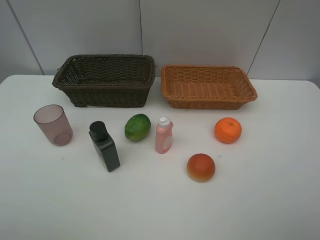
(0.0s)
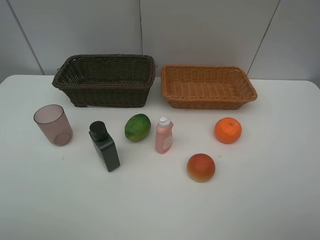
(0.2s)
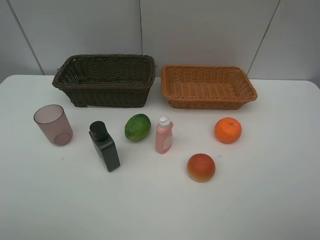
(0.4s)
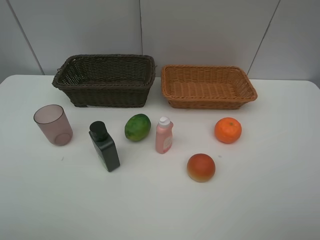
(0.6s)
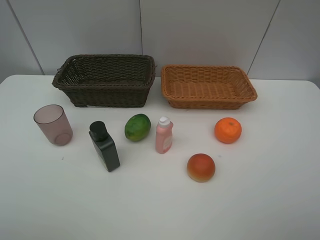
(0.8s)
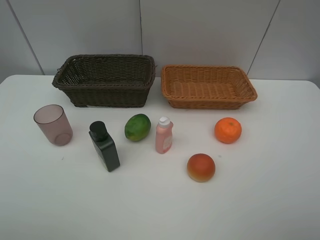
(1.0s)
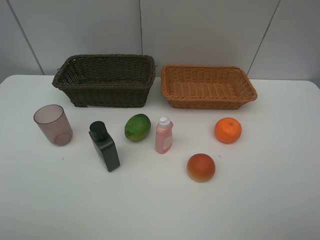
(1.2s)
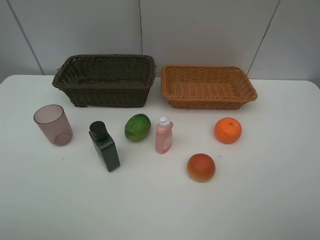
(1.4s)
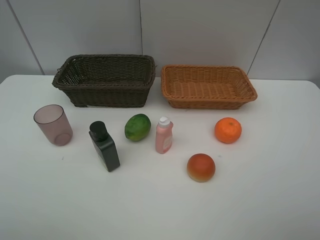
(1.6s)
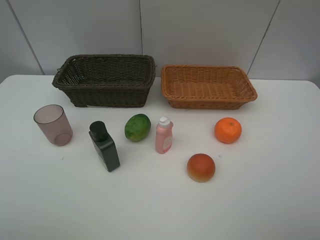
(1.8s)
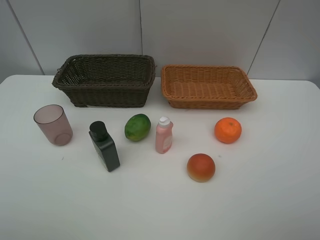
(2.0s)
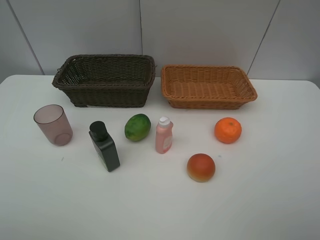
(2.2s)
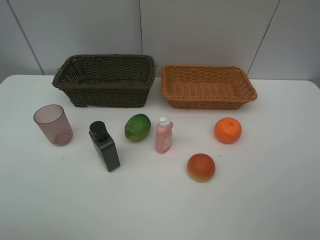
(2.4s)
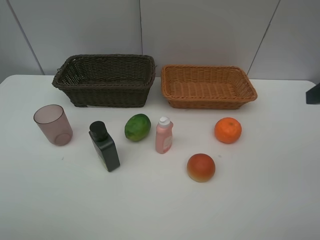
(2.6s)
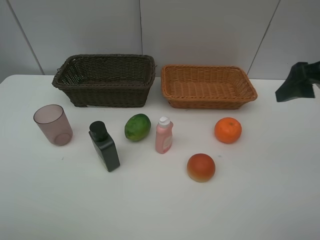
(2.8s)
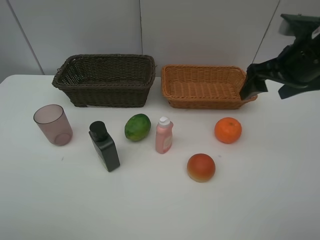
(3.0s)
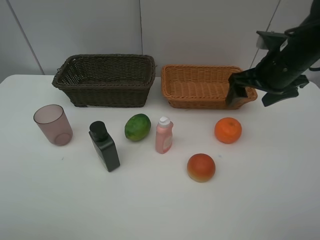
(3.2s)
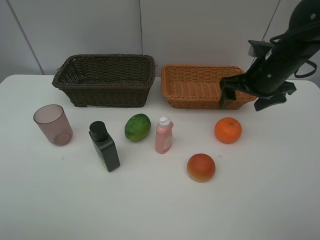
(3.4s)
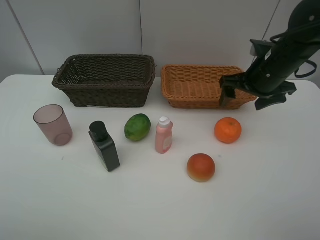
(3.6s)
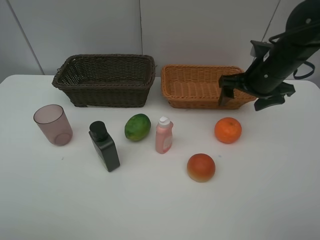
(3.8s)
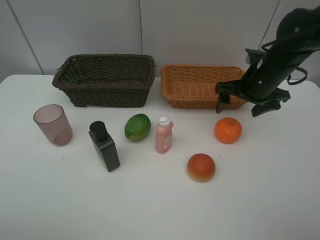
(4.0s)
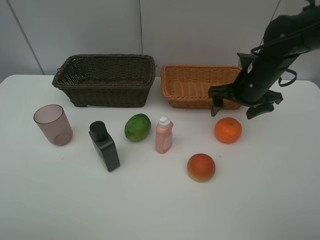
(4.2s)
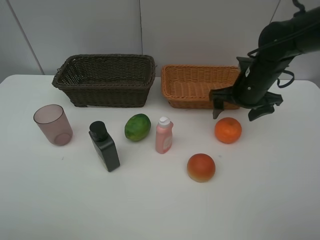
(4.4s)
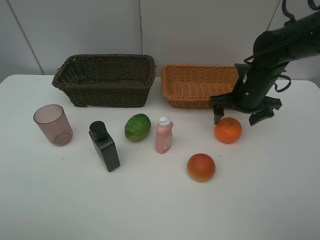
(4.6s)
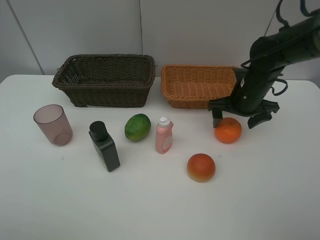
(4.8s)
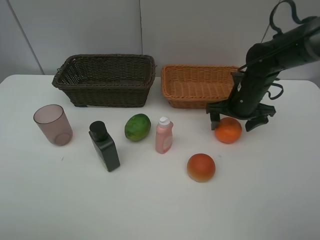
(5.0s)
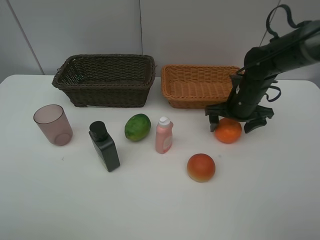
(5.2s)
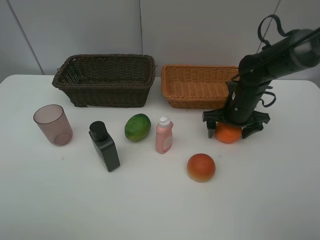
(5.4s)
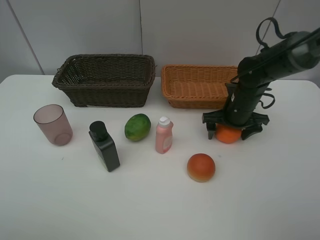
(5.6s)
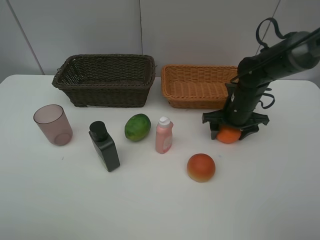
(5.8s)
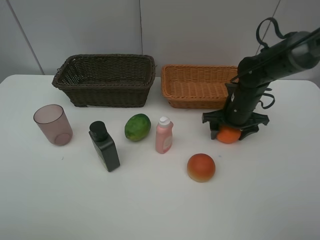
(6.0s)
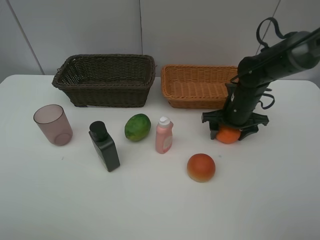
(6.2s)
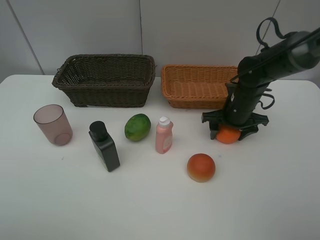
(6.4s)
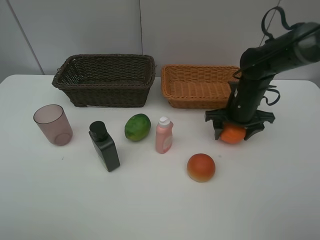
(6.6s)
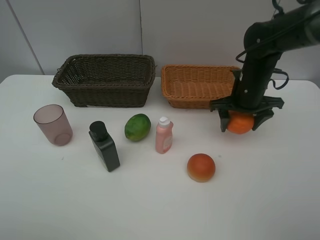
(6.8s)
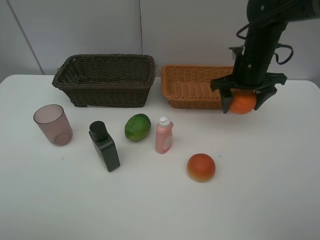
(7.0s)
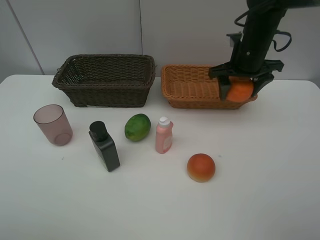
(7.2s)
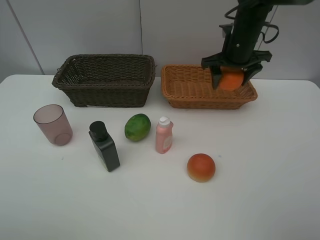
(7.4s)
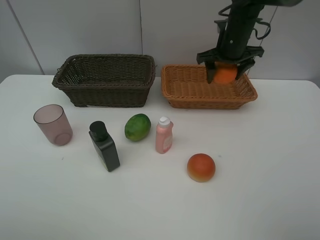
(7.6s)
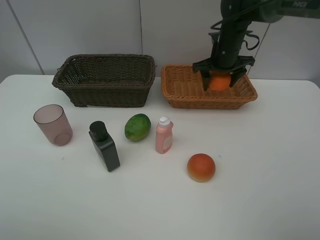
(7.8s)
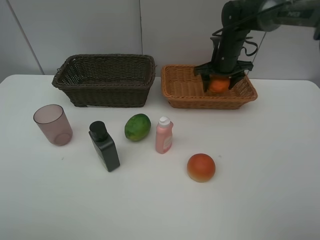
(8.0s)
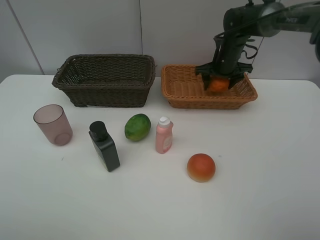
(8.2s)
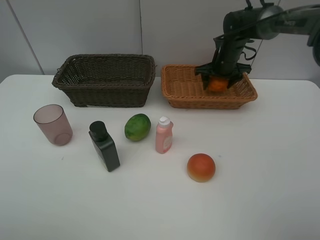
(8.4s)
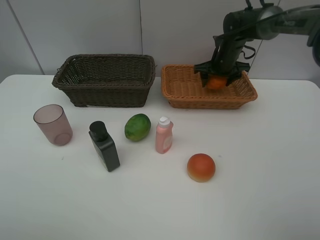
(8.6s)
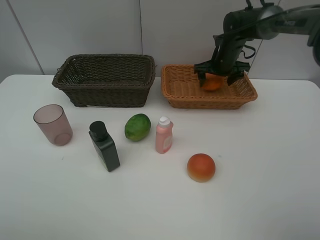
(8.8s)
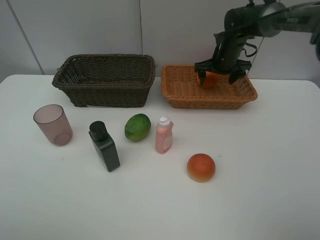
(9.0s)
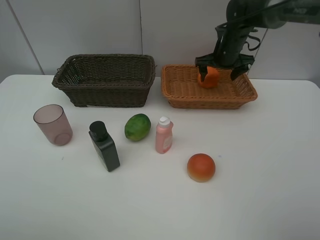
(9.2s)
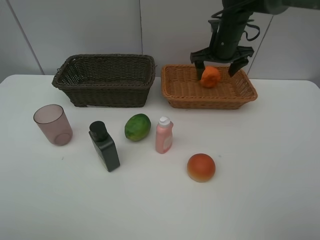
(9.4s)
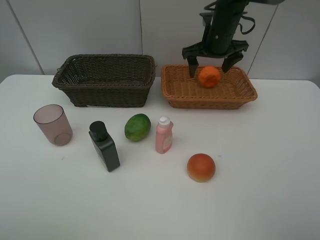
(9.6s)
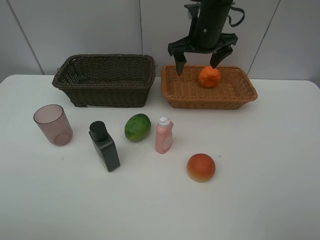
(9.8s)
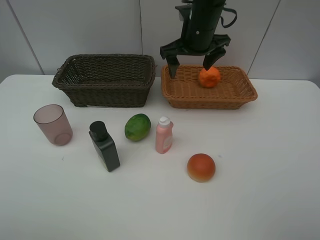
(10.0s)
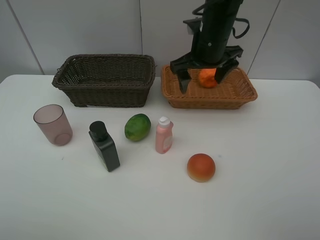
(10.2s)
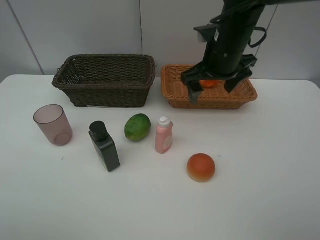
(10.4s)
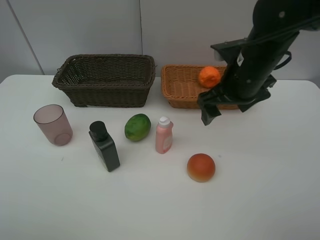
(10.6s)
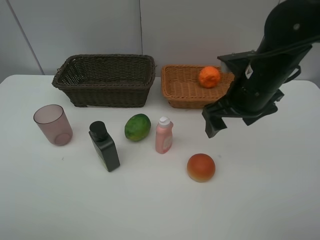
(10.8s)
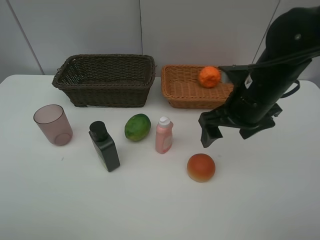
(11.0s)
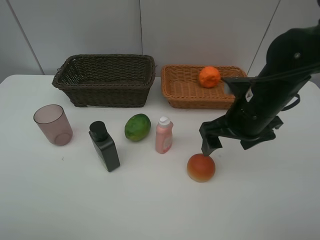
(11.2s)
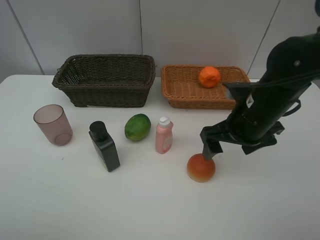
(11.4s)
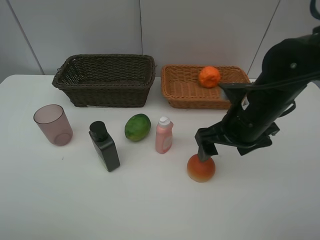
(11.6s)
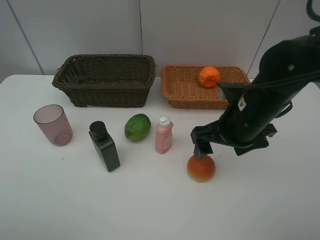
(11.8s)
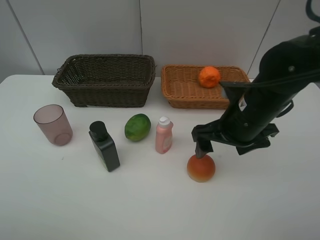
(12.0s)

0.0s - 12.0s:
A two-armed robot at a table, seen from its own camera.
Task of the whole recording: place multiple objects separately in different baskets.
0.0s - 1.6s: Both grippers stay about where they are.
1.6s - 3.0s: The right gripper is displaced forward by some 30 cm.
3.0s - 4.4s: The right gripper shifts approximately 10 cm downward and forward.
4.4s - 6.0s: The right gripper moves downward, roughly 5 cm.
6.0s - 7.6s: The right gripper shifts roughly 15 cm upward and forward.
7.6s - 9.0s: The right gripper heads downward, covering about 5 cm.
9.0s - 10.4s: The right gripper is displaced backward and upward by roughly 20 cm.
10.4s - 12.0s: The right gripper moves backward and downward, about 10 cm.

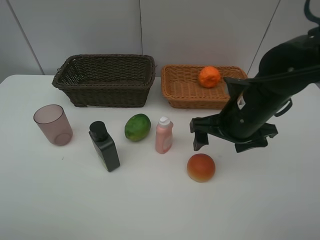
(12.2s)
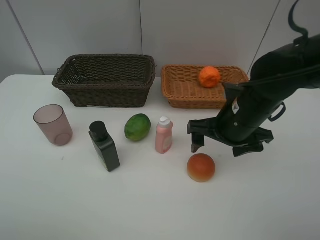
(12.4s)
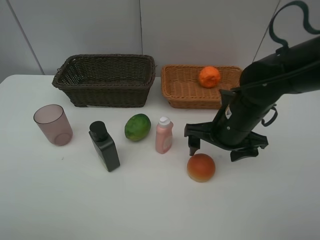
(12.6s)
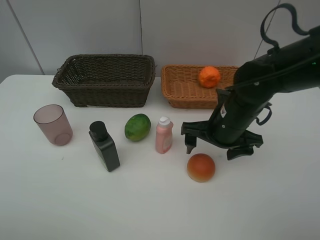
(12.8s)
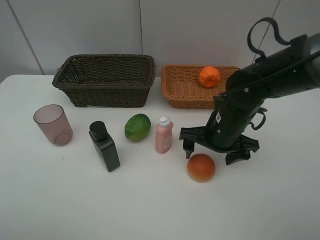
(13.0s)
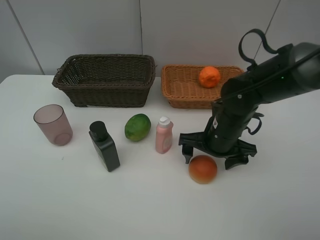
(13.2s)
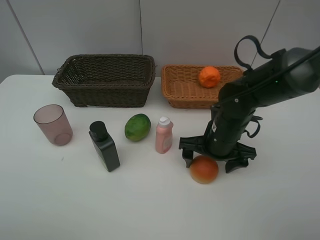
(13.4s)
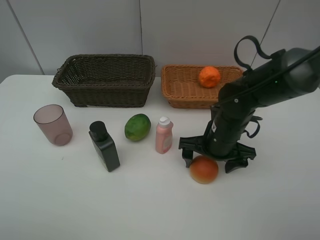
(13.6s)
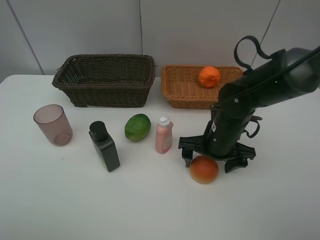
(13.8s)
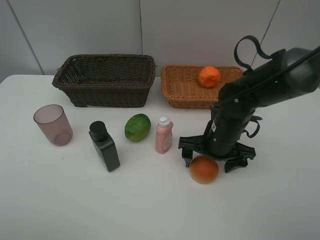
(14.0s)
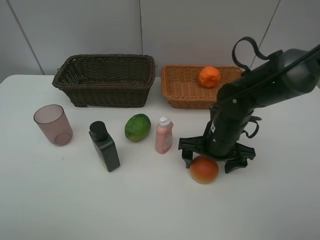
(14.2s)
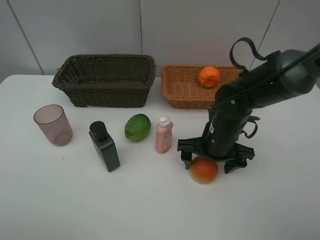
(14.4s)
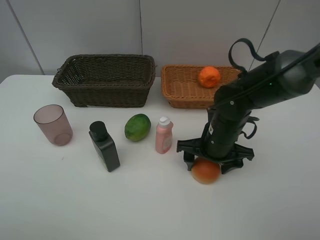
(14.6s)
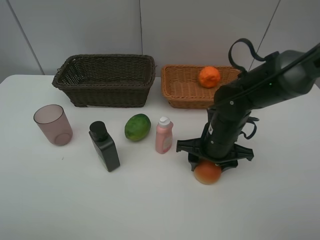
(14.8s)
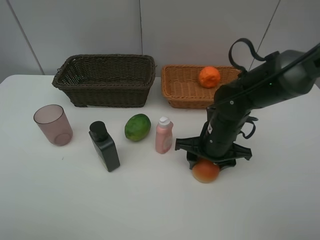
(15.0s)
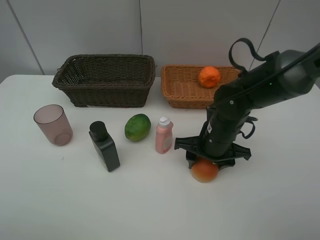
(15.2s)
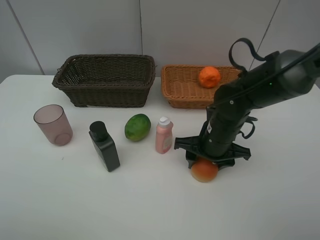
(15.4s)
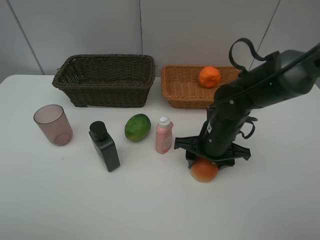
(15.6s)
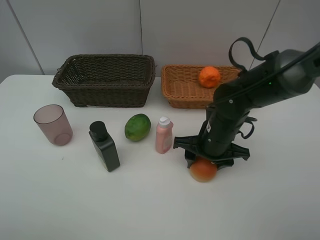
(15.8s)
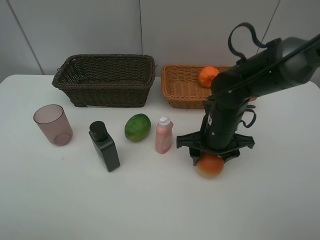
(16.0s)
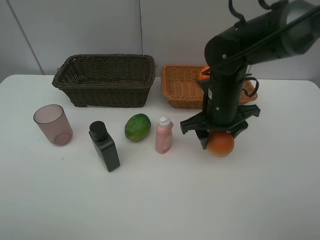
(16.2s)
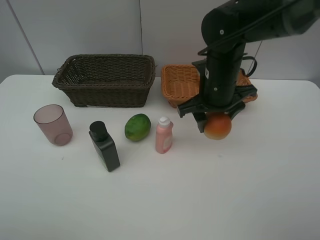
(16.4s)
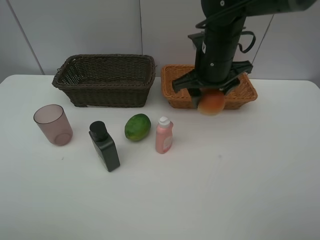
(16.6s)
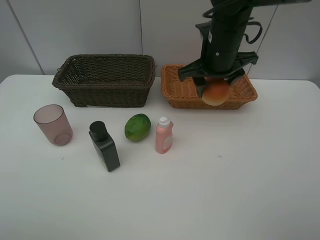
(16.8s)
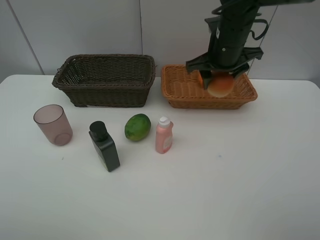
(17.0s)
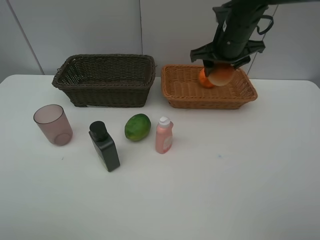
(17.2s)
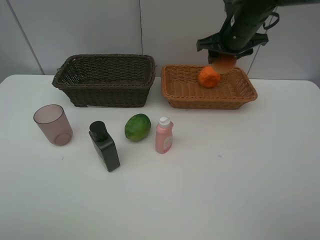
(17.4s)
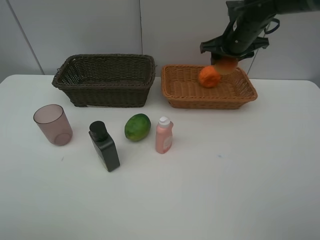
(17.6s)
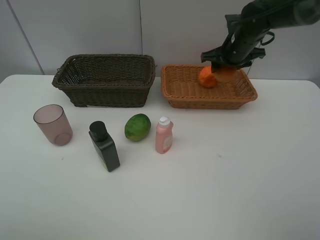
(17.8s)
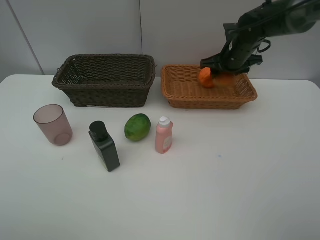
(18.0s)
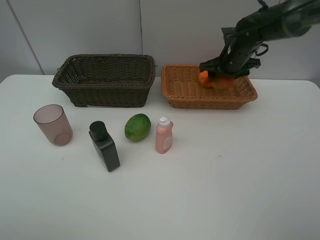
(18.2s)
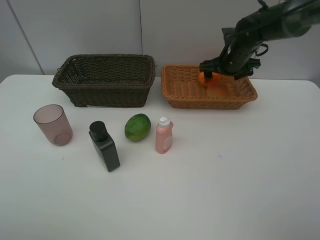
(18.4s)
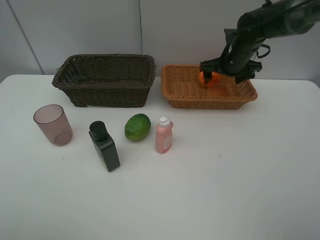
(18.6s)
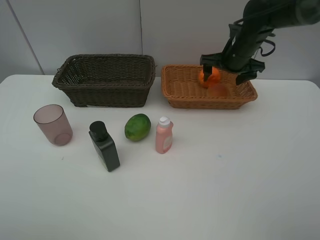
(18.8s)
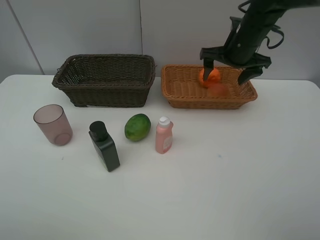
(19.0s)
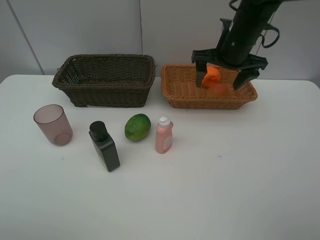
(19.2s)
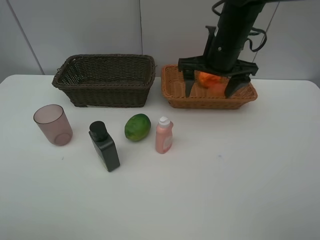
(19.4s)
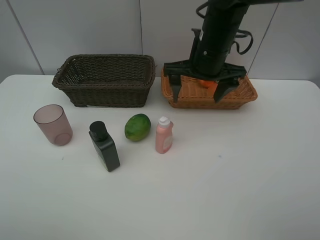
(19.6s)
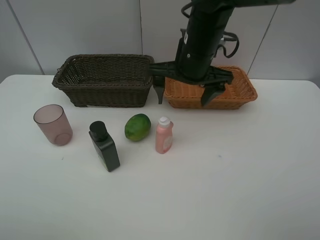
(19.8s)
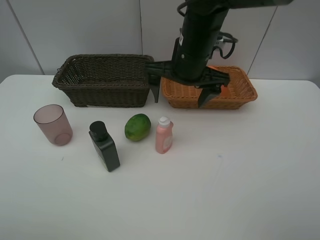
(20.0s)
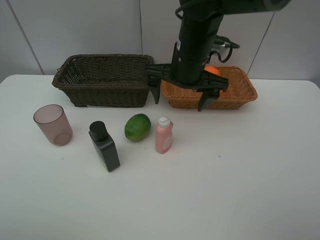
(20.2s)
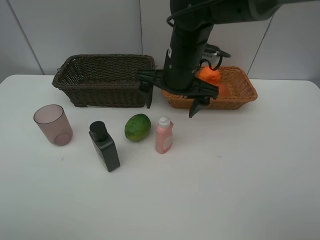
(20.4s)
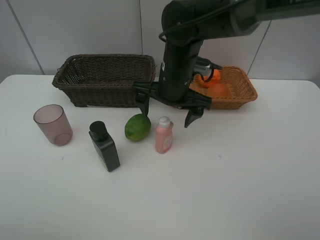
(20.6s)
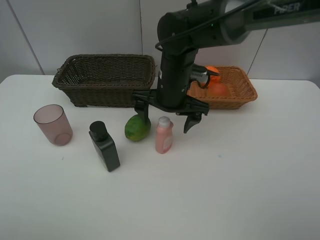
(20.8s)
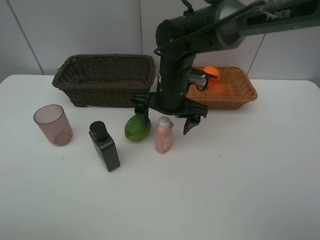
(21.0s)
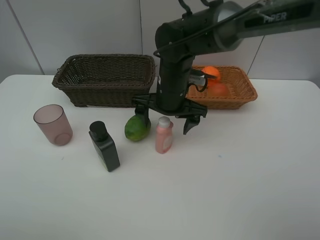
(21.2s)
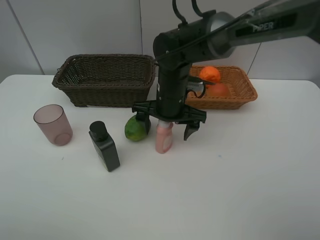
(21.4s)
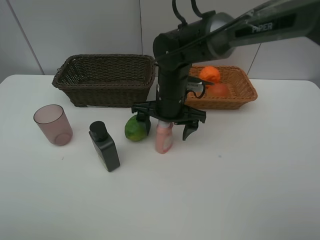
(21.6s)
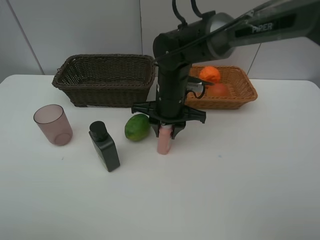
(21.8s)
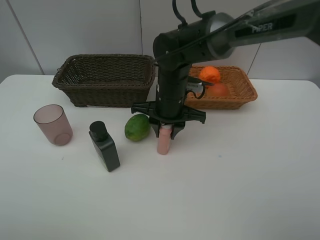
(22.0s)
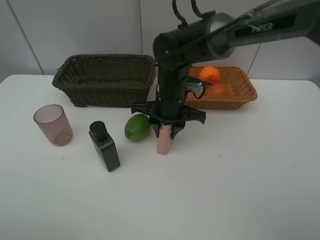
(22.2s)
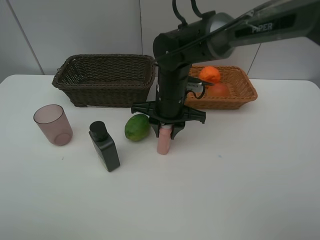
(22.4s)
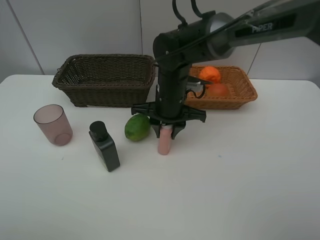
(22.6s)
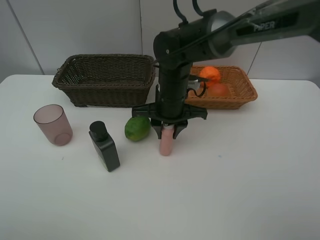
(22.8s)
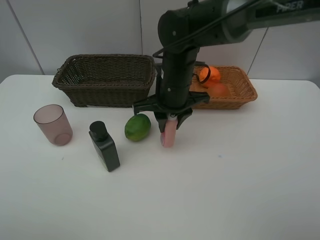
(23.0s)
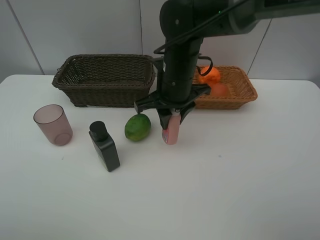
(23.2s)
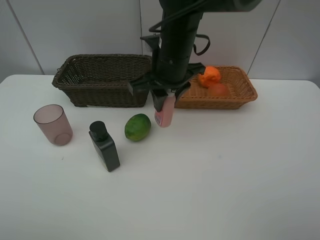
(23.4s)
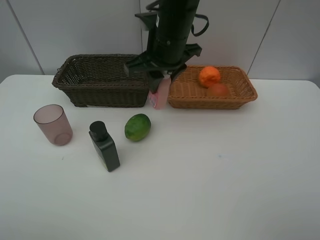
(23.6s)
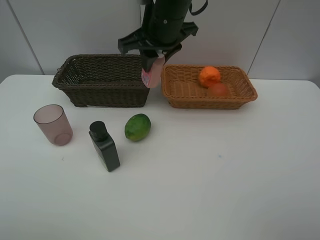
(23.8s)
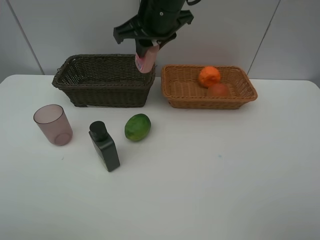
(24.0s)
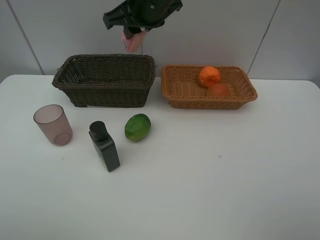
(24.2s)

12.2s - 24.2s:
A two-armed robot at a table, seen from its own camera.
Task of the whole recording: place multiple objects separately in different baskets.
12.2s - 13.8s: The right gripper shifts approximately 10 cm downward.
13.8s - 15.2s: The right gripper closes up.
15.2s - 16.6s: The right gripper goes roughly 15 cm upward and forward.
16.6s - 18.2s: The right gripper goes approximately 15 cm forward, to the right and downward.
18.2s - 19.8s: The right gripper heads to the left, backward and upward, covering some 20 cm.
19.8s - 21.2s: The right gripper is displaced downward by approximately 10 cm.
21.2s - 22.6s: The right gripper closes its fingers.
22.6s - 24.2s: The right gripper heads upward, covering approximately 15 cm.
